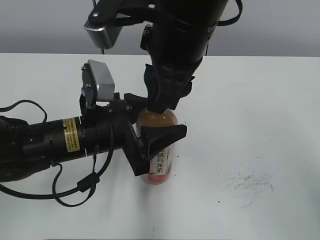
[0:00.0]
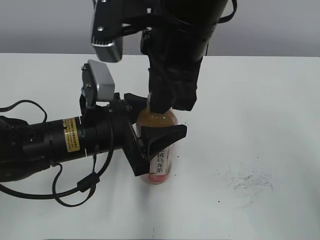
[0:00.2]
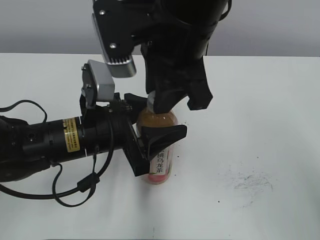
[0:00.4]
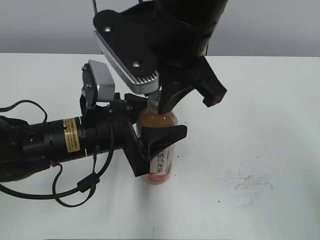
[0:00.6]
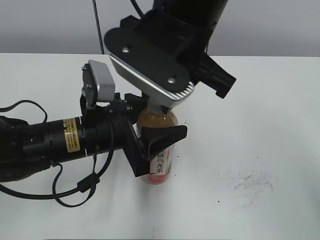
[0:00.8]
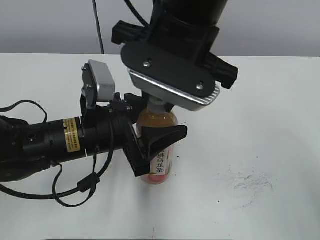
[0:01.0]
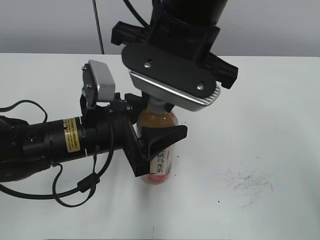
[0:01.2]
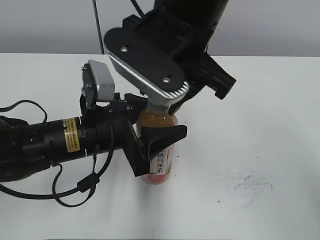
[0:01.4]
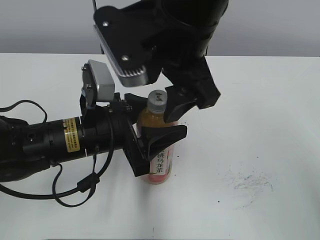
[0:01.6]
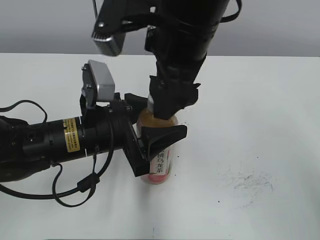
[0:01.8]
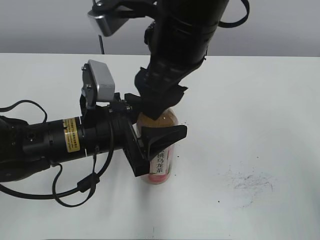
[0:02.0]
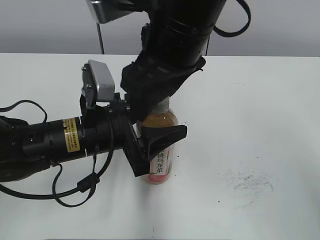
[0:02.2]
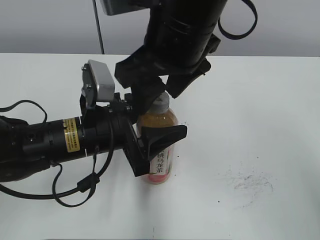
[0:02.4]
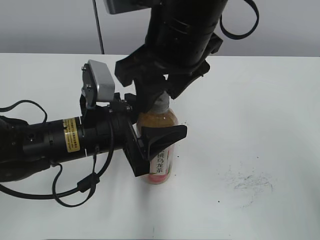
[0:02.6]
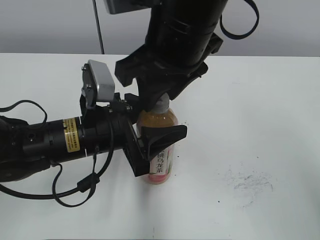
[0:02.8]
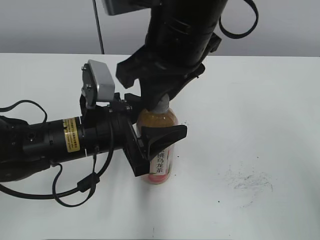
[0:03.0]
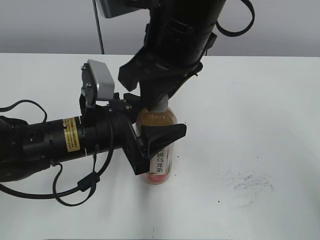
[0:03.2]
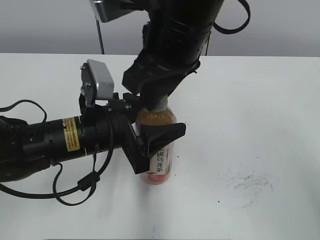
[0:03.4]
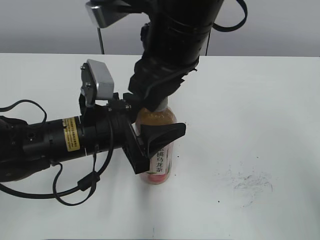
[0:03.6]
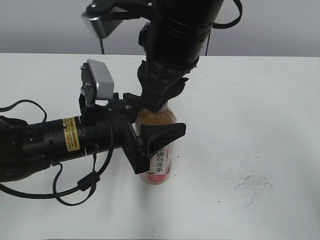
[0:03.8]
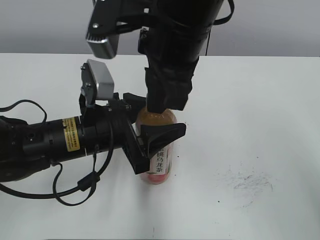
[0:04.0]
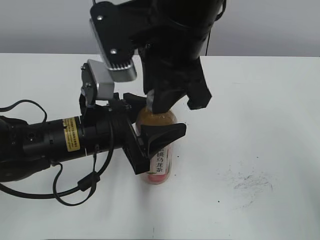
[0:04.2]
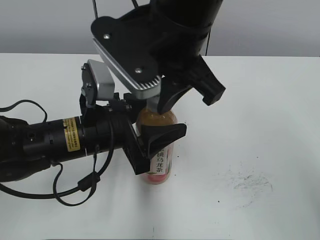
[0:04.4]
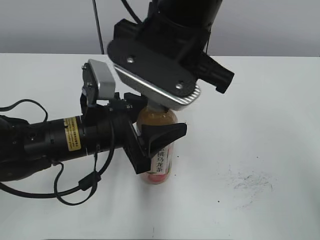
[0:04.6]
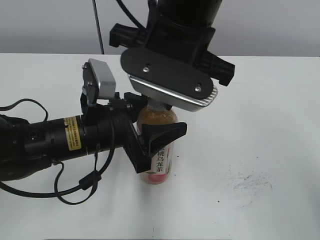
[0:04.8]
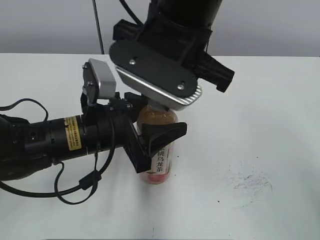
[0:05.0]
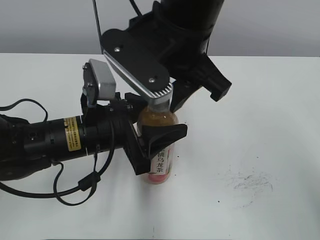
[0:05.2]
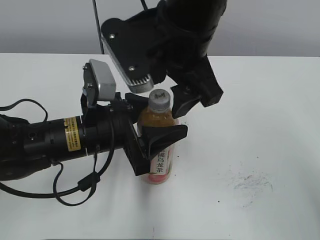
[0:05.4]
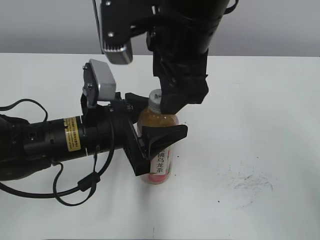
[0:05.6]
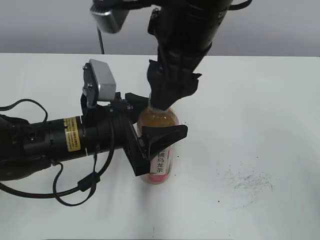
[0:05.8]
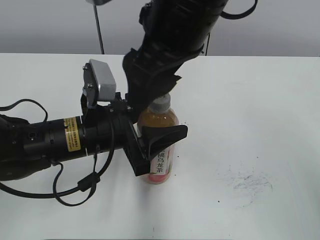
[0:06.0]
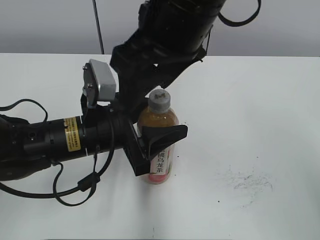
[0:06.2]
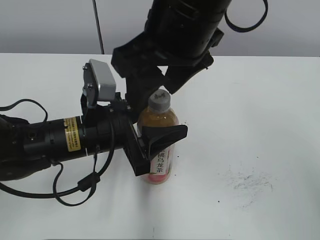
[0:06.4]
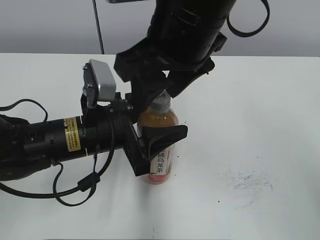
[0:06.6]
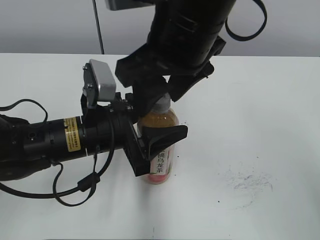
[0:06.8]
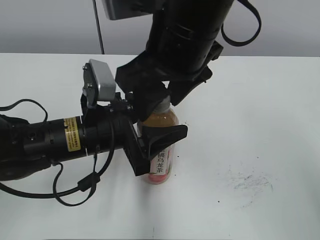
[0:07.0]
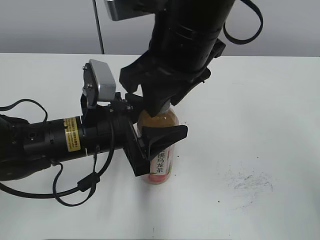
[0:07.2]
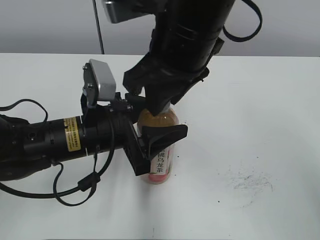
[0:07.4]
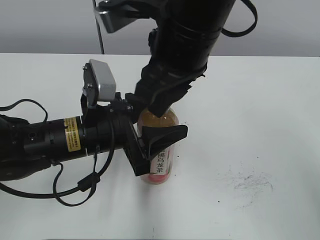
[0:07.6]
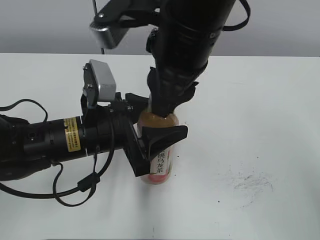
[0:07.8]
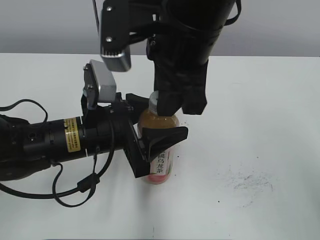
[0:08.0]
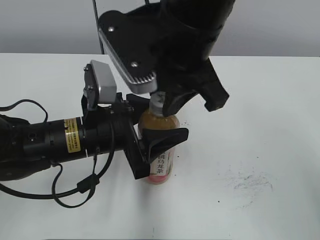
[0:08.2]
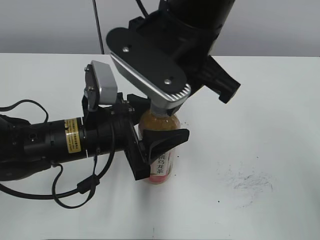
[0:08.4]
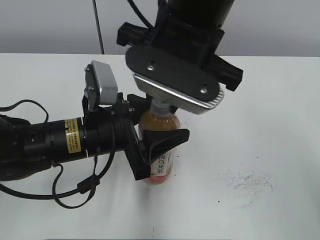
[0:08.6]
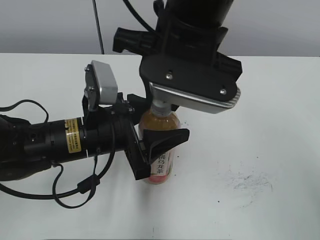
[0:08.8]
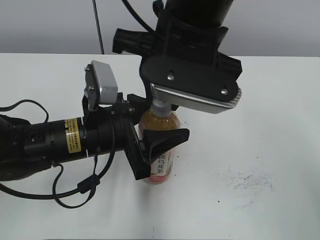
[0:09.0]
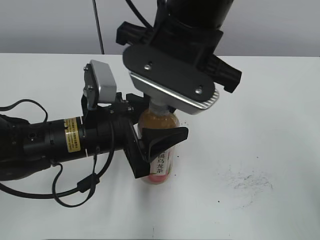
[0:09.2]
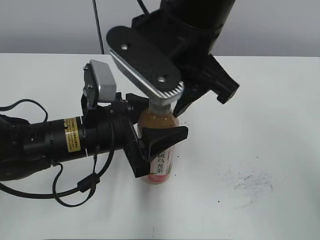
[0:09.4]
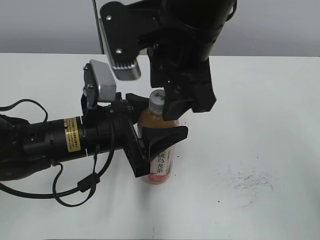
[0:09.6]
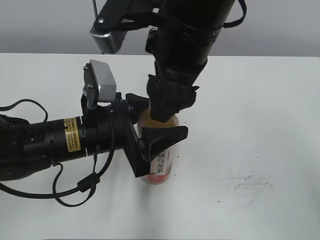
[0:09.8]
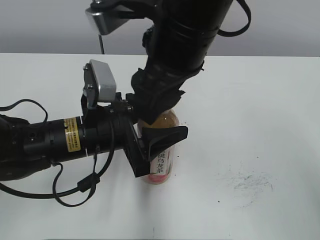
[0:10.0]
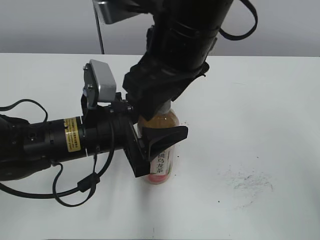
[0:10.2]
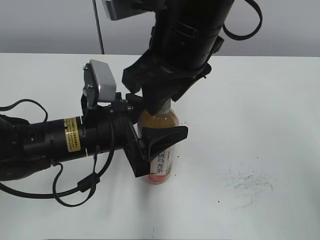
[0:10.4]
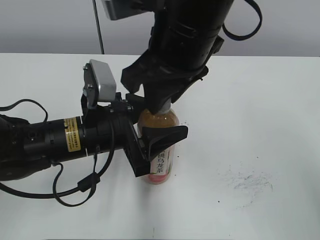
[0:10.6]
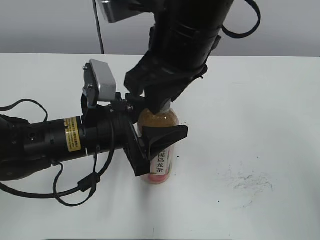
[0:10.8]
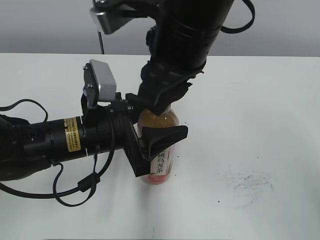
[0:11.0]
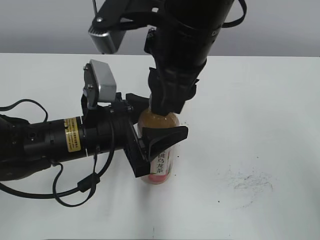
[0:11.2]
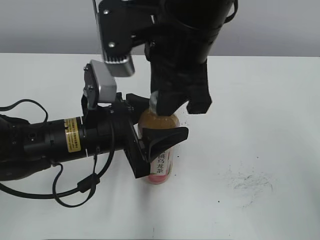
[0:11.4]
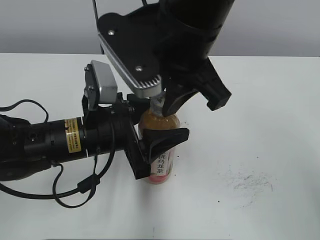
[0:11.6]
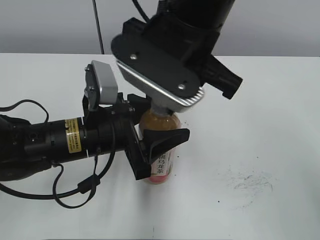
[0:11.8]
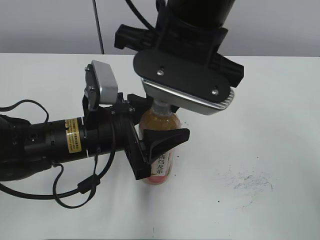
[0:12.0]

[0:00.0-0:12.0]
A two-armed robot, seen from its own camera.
0:00.0 to 0:01.6: The right gripper opens.
0:01.6 to 0:03.0: The right gripper closes up.
0:04.4 to 0:06.0: The right gripper opens up.
0:06.0 to 0:07.6: The right gripper closes its fingers.
0:09.0 to 0:10.4: The right gripper opens and closes again.

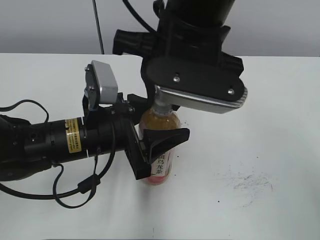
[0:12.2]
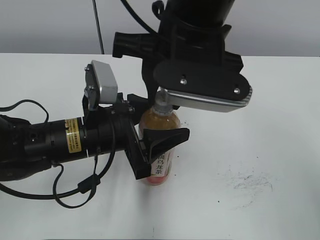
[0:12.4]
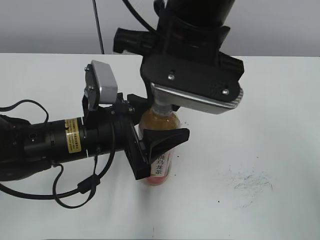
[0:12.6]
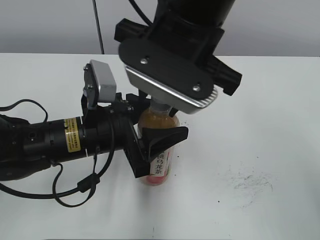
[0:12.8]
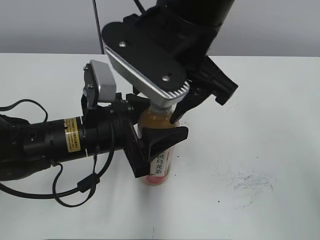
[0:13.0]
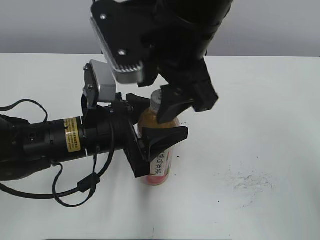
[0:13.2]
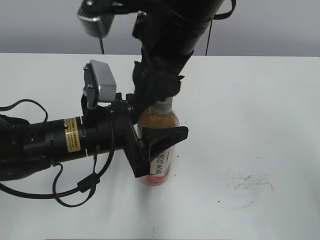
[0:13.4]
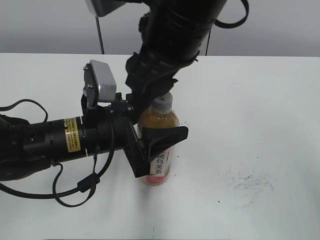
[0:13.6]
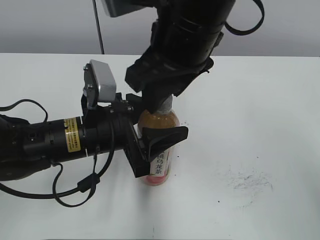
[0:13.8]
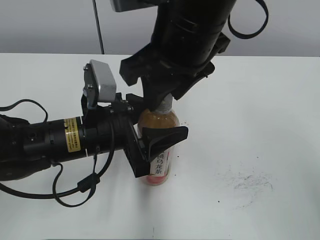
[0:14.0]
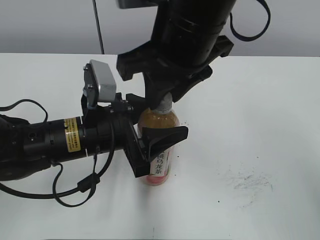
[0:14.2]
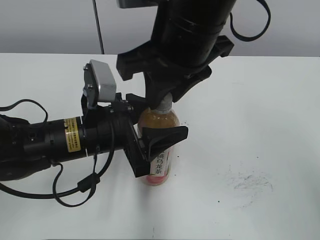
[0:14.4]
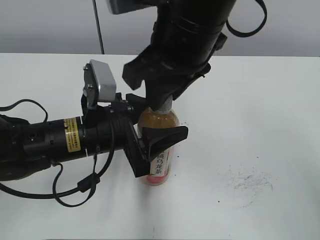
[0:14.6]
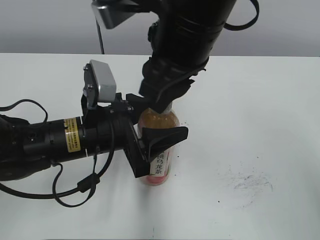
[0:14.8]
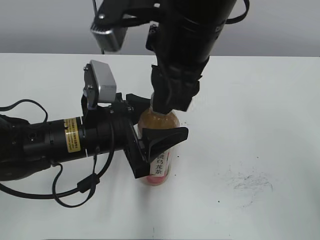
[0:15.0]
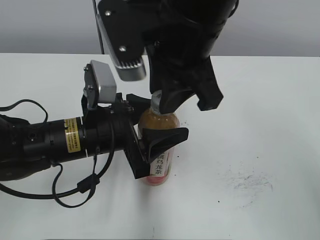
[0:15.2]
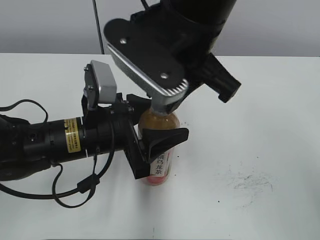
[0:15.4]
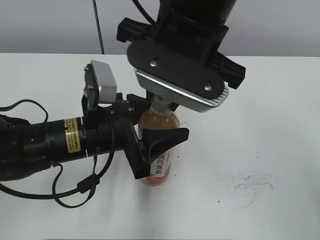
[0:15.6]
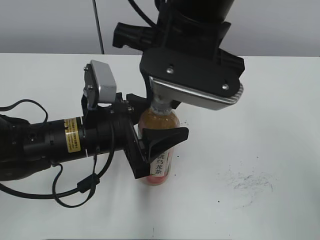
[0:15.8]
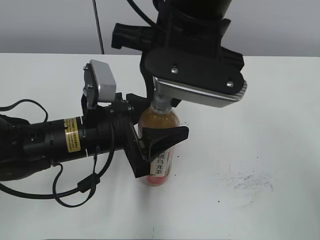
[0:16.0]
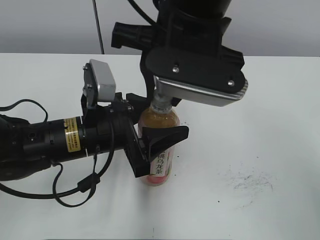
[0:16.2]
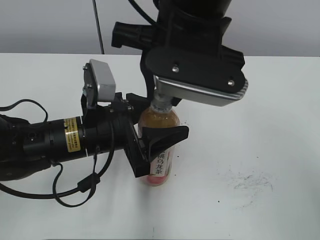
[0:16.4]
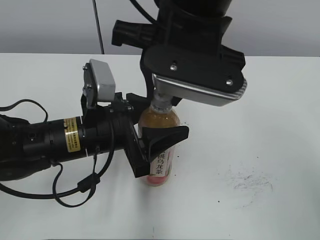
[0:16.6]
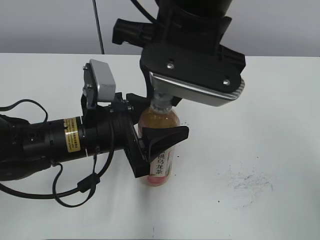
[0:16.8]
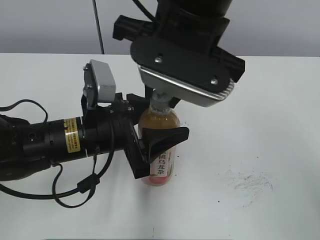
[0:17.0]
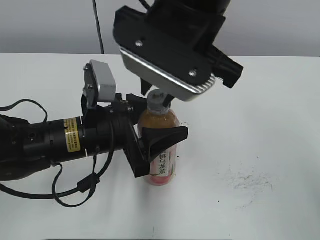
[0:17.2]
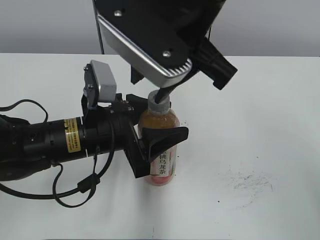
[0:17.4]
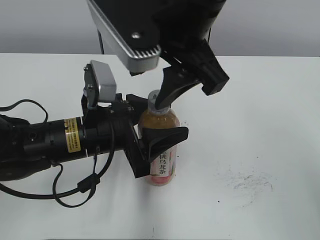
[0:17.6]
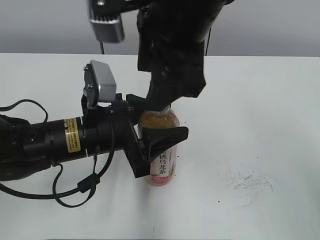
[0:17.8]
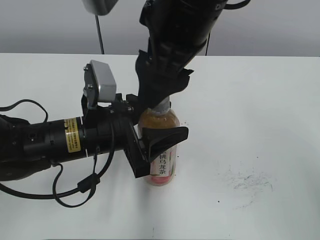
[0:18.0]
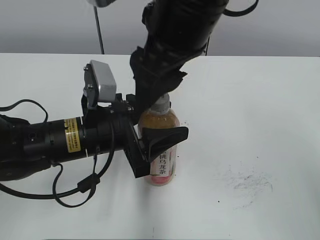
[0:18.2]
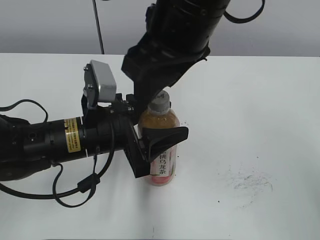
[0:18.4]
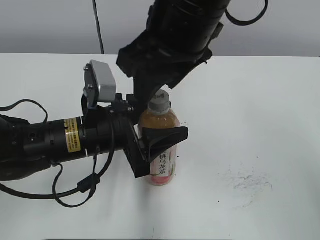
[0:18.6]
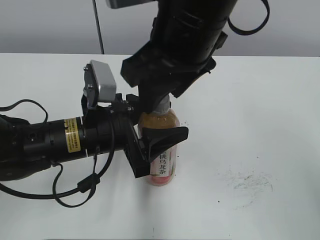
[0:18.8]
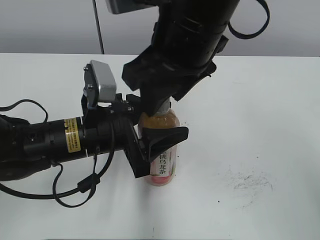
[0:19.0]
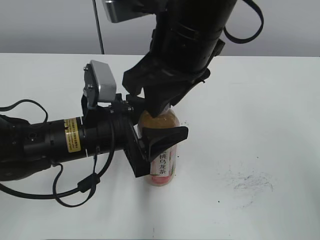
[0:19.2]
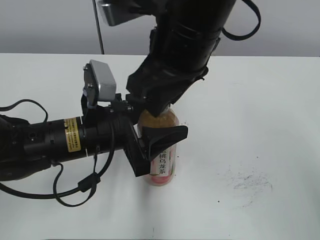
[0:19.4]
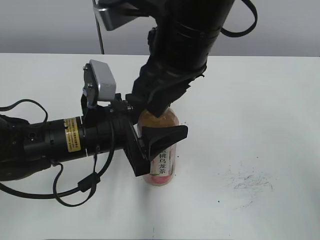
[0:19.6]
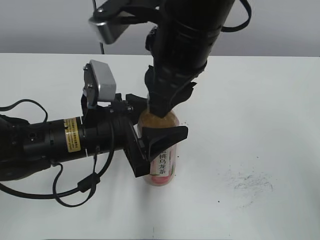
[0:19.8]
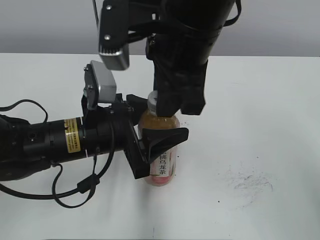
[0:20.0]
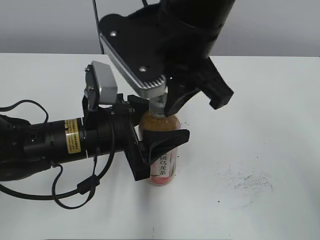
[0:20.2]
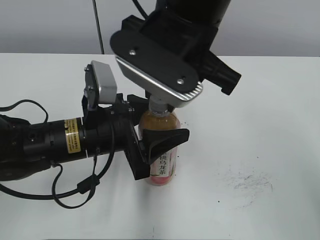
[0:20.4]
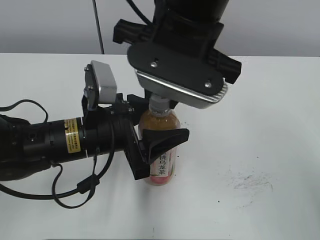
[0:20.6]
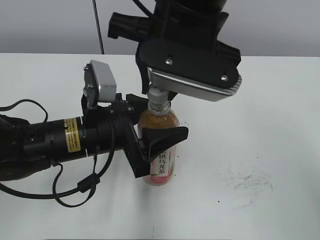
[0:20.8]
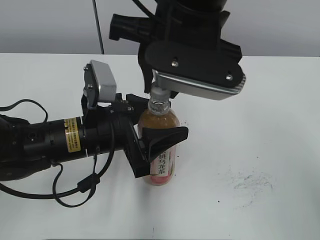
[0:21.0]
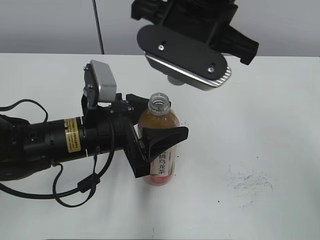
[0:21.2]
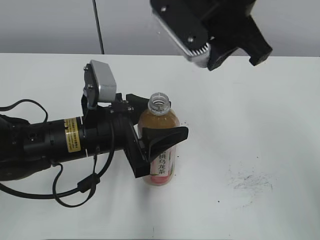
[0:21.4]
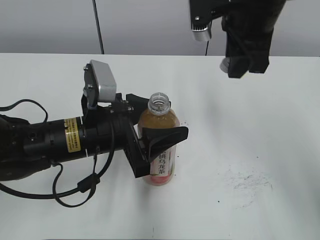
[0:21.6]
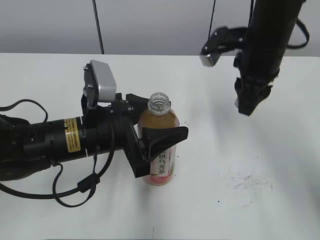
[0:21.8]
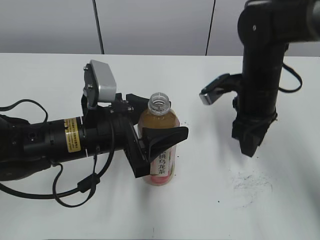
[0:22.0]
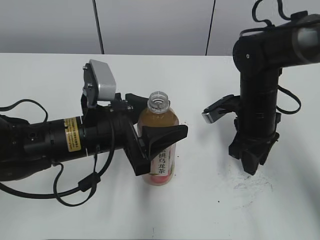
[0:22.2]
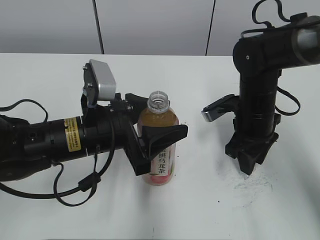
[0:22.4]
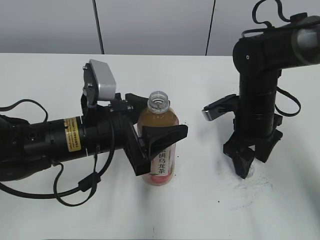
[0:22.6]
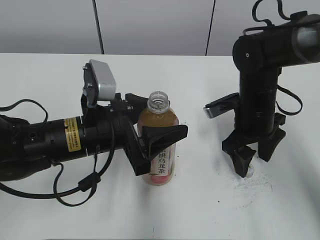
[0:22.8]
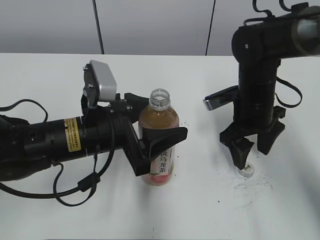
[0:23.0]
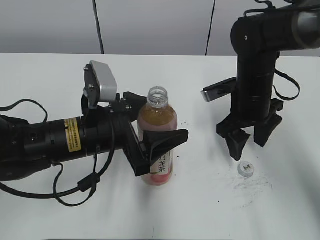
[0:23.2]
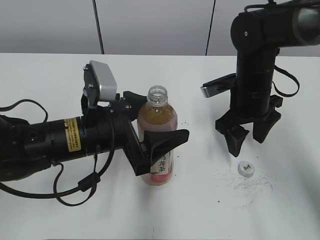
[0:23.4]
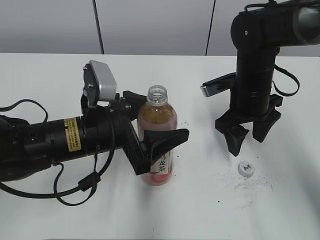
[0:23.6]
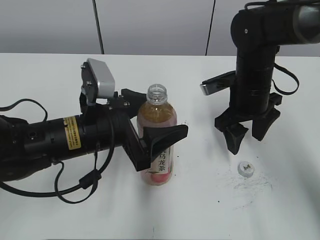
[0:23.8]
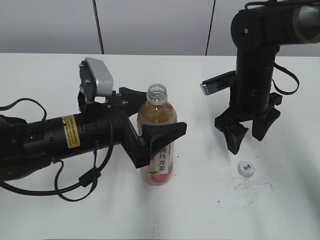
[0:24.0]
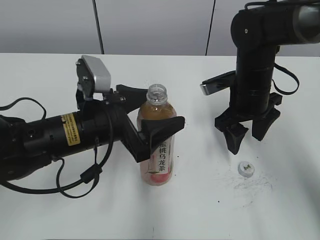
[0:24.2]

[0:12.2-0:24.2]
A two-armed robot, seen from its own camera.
Step, 0:21.0 to 0:22.4: Place the bottle cap on the right.
0:12.2 to 0:13.8: The right gripper opens its fingers.
0:13.8 to 0:15.2: The right gripper closes.
0:16.6 to 0:18.2: The right gripper opens its fingers.
0:18.2 to 0:19.8: The right gripper closes its fingers.
0:21.2 to 0:22.6: The right gripper goes approximately 25 cm downward and to the right, and opens up.
0:22.6 to 0:24.2: The left gripper opens its fingers.
